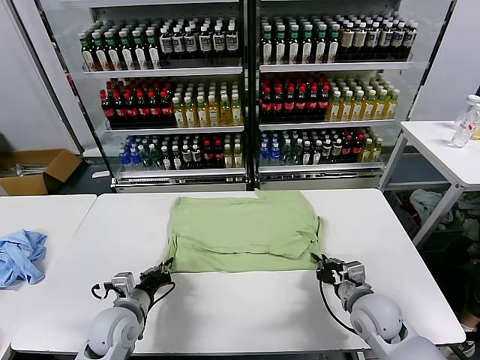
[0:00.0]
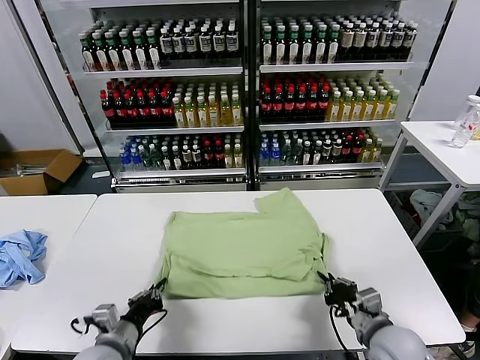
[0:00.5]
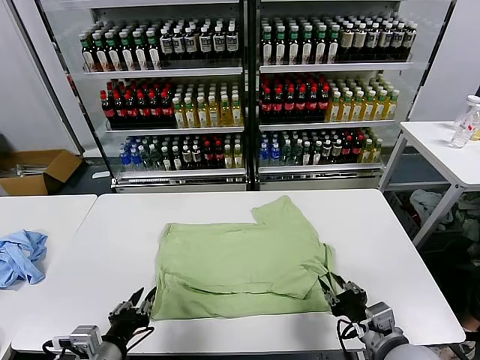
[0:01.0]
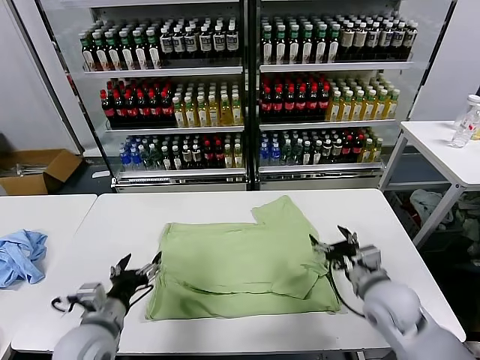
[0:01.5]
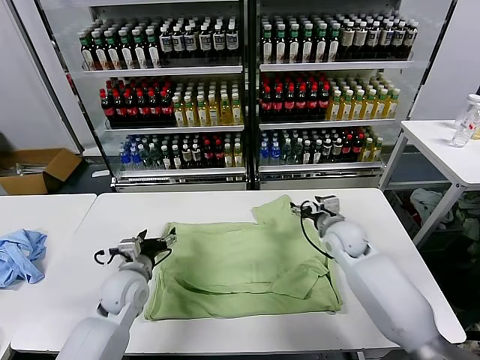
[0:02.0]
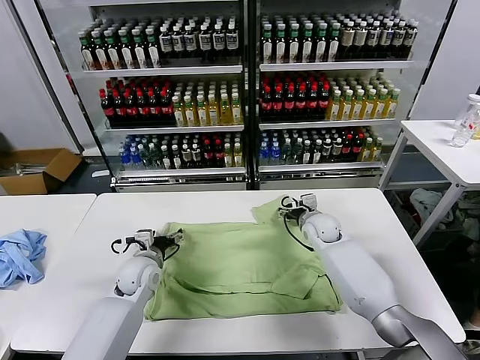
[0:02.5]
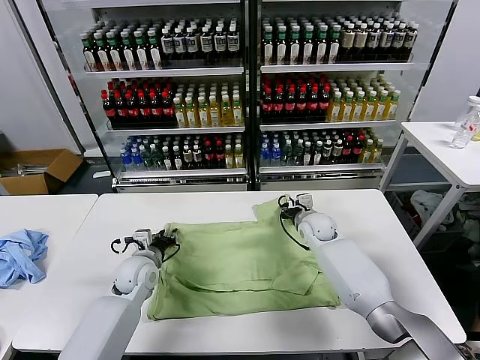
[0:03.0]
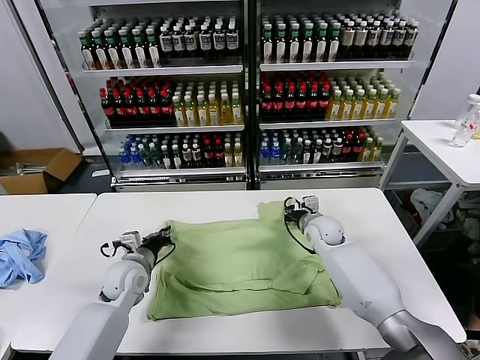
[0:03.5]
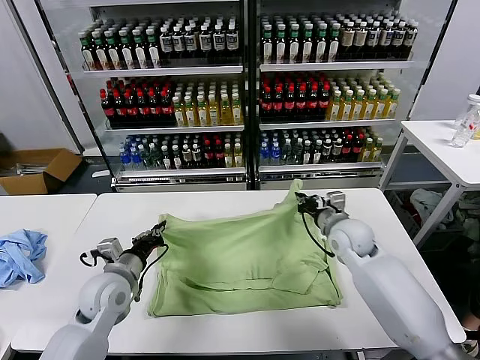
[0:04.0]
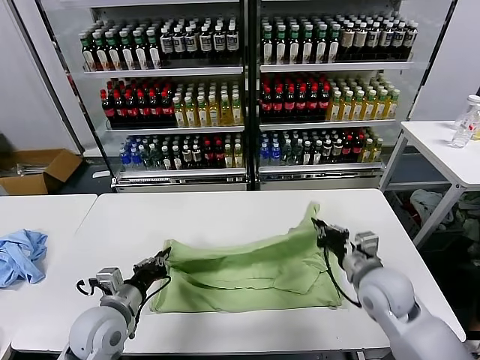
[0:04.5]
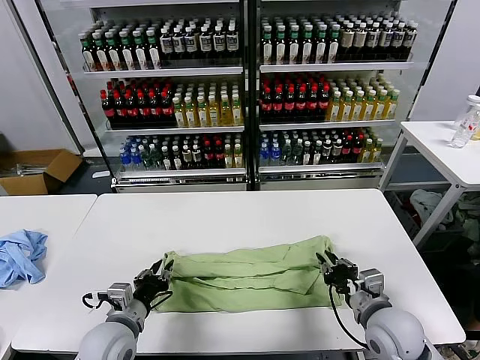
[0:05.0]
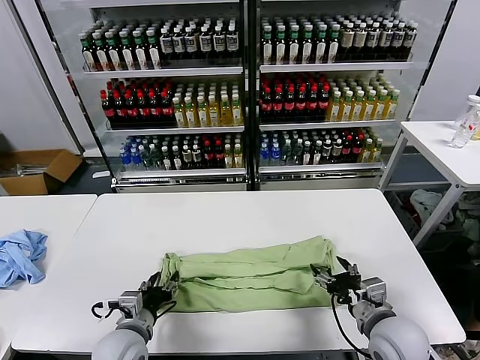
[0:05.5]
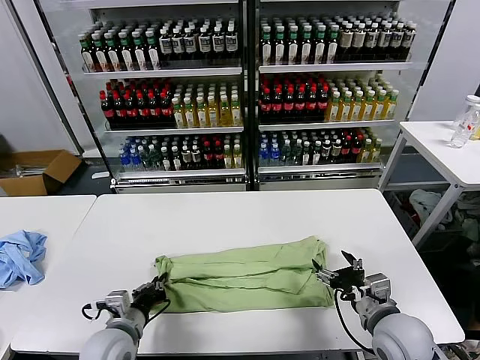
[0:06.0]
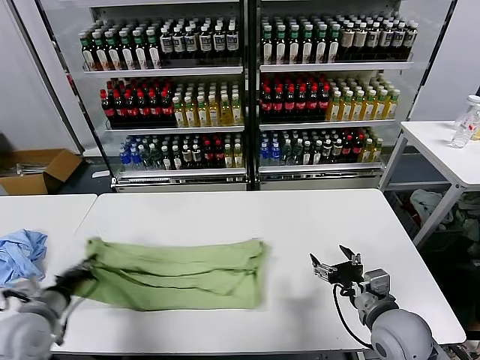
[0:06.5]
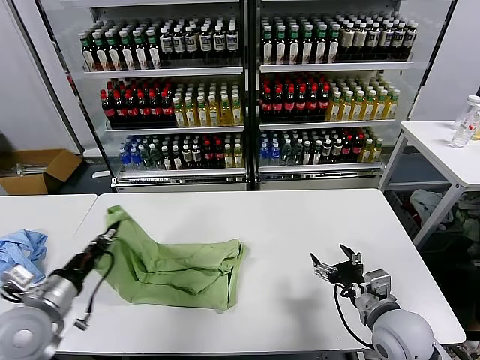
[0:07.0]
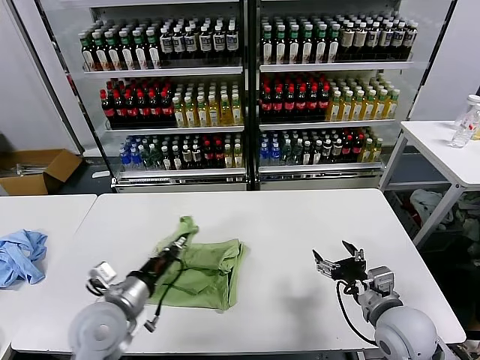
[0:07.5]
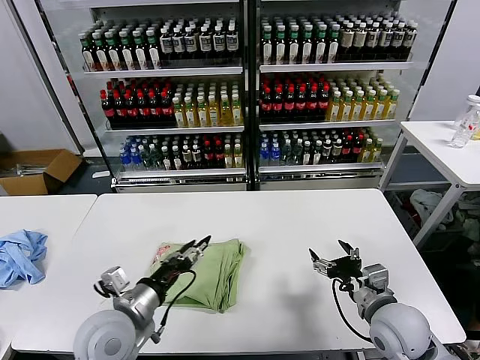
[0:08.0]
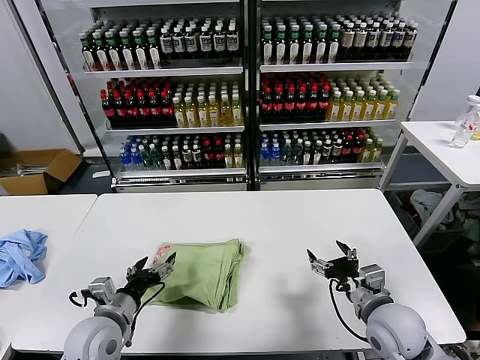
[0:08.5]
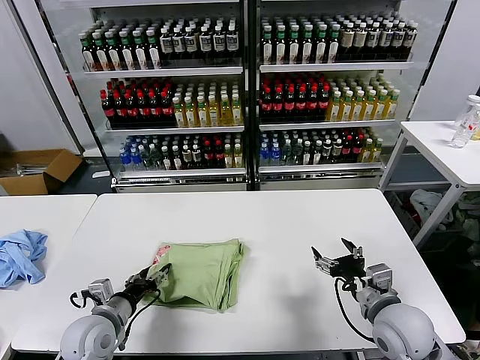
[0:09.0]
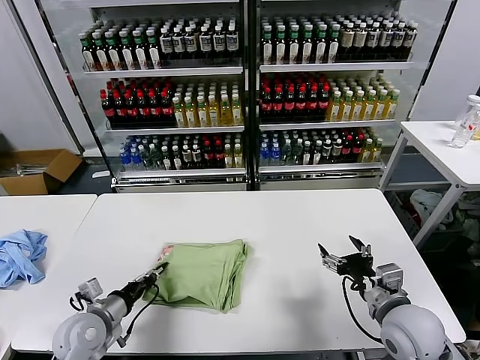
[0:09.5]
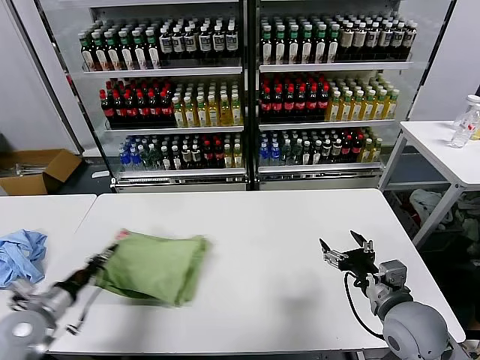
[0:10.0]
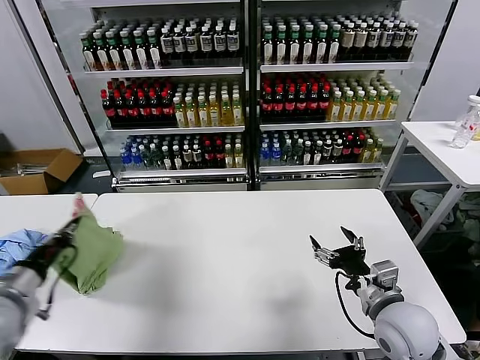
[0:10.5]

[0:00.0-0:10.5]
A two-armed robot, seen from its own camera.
Task of the whole recording: fold and organize the clothes.
Step, 0:01.5 to 0:03.0: use both grippers simultaneously to clamp the upper edge of the clothing fabric.
Step, 0:03.5 to 0:05.0: use both grippers to drag the upper edge of the fabric backward and fold it over the lower edge.
Step, 0:05.5 to 0:06.0: use the left gripper to clamp the left edge of the fabric.
Step, 0:06.5 to 0:07.5: use the left gripper to drag the left edge of the fabric to the left and folds it over the right edge.
0:00.0 to 0:02.0: The right gripper travels forward by roughly 20 cm, and opens. Meanwhile the left gripper reaches roughly 15 cm backward, then returns, and opens up.
0:02.0 to 0:04.0: The left gripper closes up, while the right gripper changes place by approximately 5 cm, and closes.
0:04.0 to 0:06.5: The right gripper is displaced backward by about 20 cm, and opens its fingers, while the left gripper heads to the left and backward, covering roughly 15 cm, and opens and closes again.
0:06.5 to 0:08.5: The left gripper moves to the right, some 10 cm, and opens its fingers.
0:08.5 to 0:10.5: The left gripper travels to the left and upward by about 20 cm, and closes its fingers.

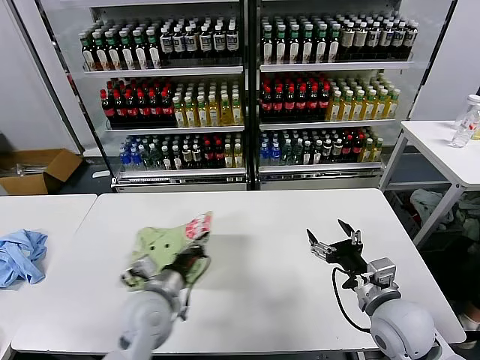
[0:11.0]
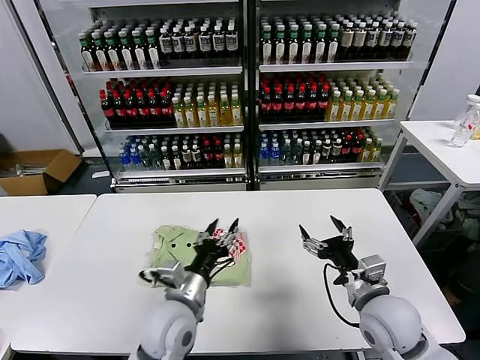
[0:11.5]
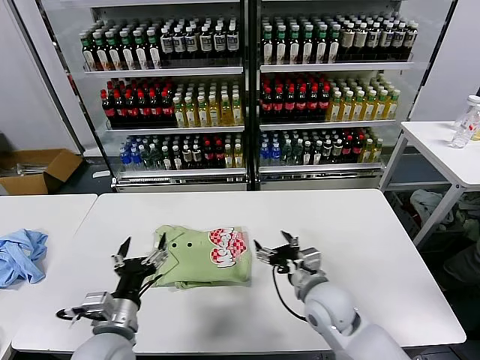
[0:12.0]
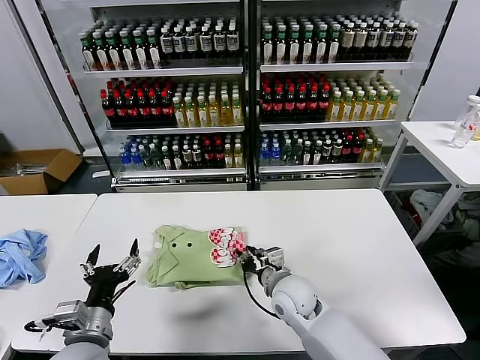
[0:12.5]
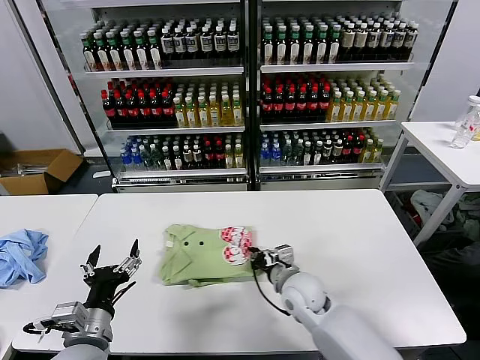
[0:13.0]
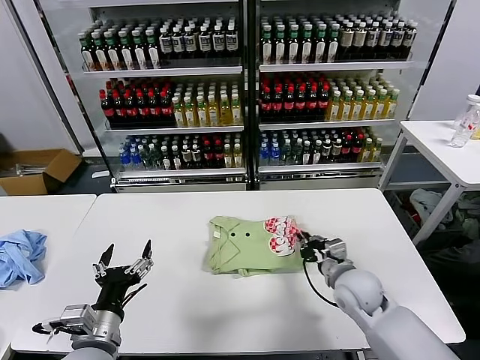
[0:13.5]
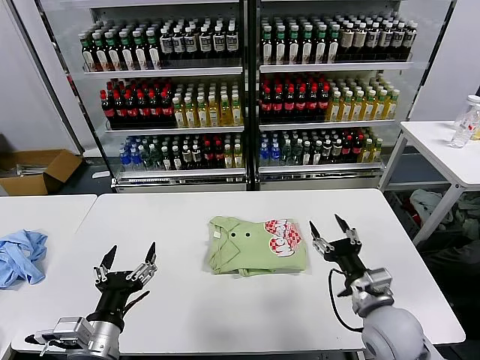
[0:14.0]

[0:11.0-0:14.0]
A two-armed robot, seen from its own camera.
Task of the whole recording: fold and organize the clothes.
Step, 0:11.5 to 0:13.5: Drag the clothes to the center of the table.
0:11.0 to 0:12.5: The left gripper moves backward and to the left, approximately 10 cm, and opens, while the right gripper goes roughly 20 cm to the left, forward and downward, and closes.
0:12.5 to 0:14.0: The right gripper shifts roughly 20 cm to the right and backward, and closes, then reopens, while the left gripper shifts by approximately 5 cm.
